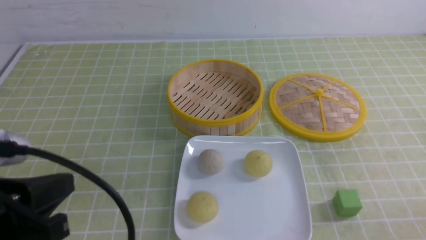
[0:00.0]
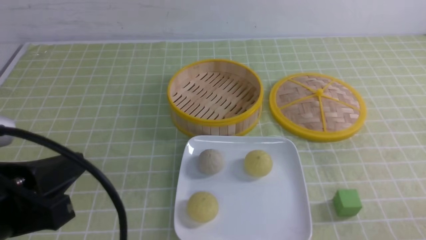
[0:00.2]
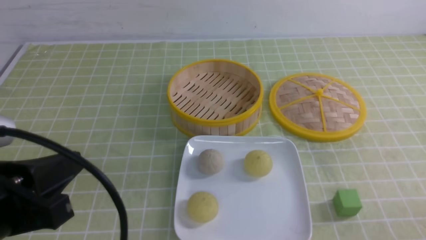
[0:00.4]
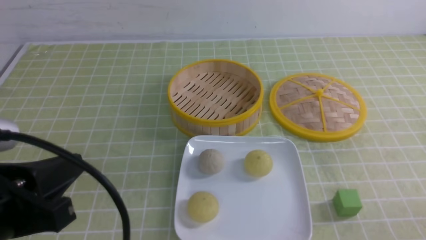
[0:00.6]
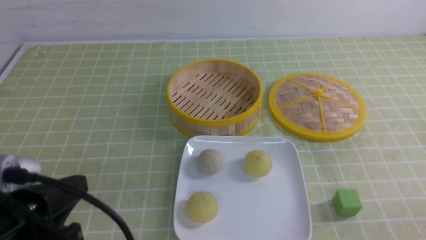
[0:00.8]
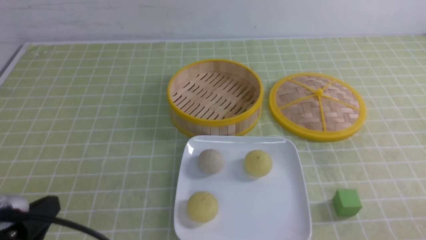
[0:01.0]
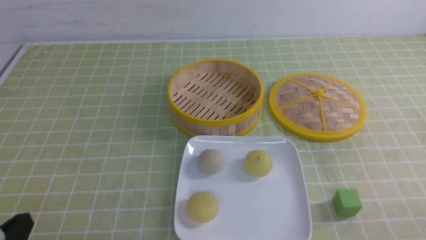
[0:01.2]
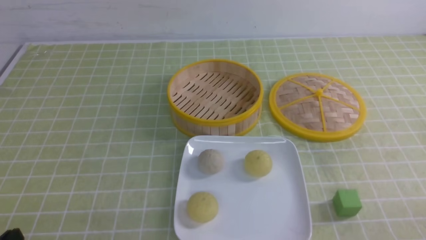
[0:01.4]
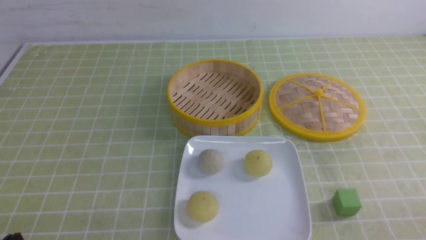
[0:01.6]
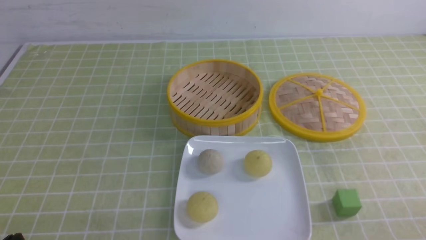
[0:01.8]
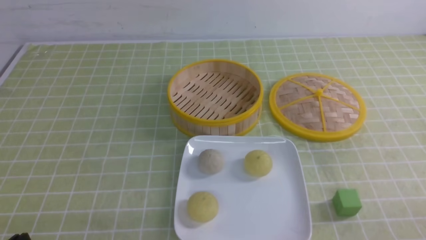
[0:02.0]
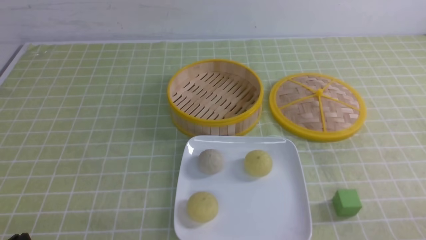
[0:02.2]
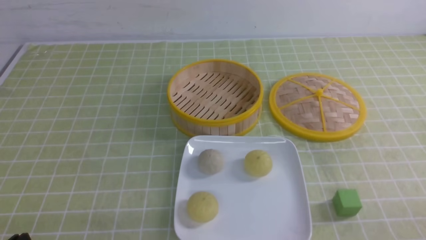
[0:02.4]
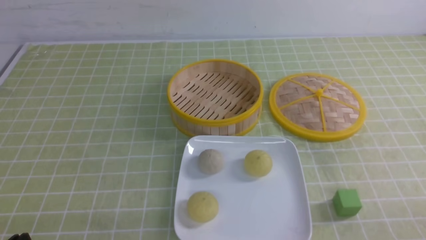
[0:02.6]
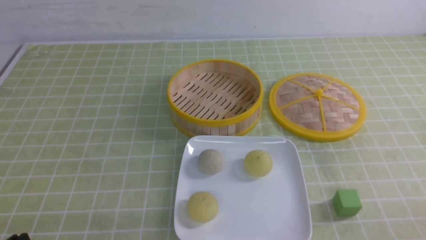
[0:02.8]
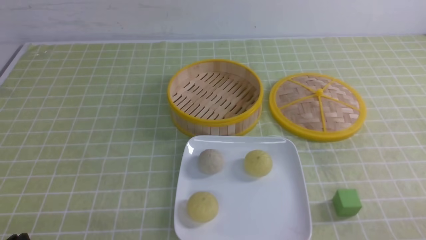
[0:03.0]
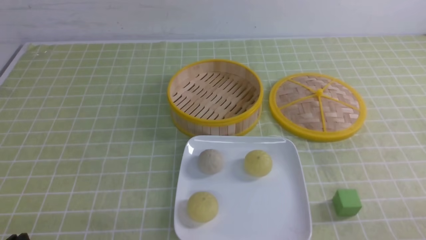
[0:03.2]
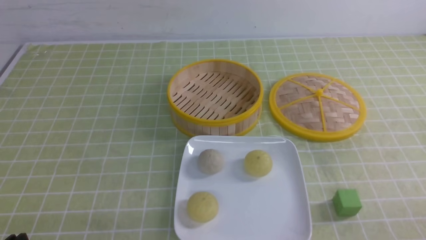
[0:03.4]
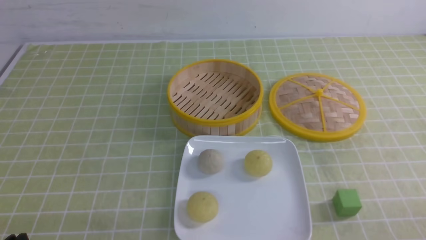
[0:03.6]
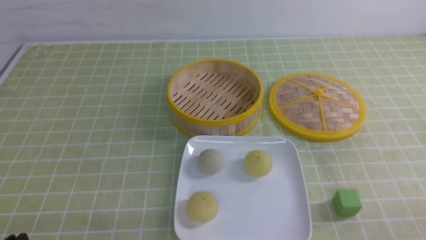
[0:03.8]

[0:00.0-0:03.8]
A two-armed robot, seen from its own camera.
0:00.0 to 0:01.2: The left gripper shifts roughly 10 cm downward.
0:02.6 to 0:03.8: Both grippers stay about where they are.

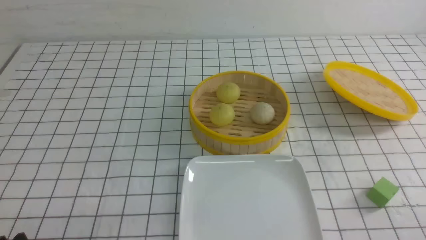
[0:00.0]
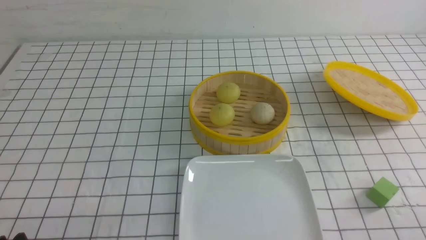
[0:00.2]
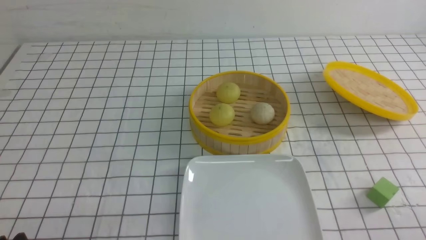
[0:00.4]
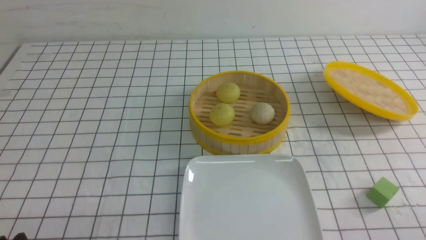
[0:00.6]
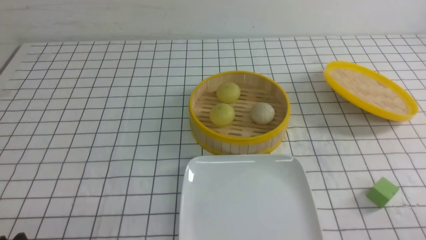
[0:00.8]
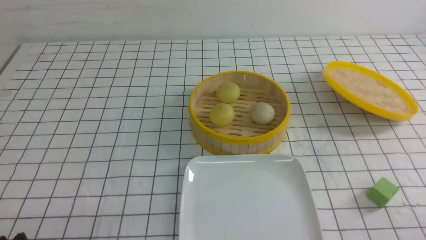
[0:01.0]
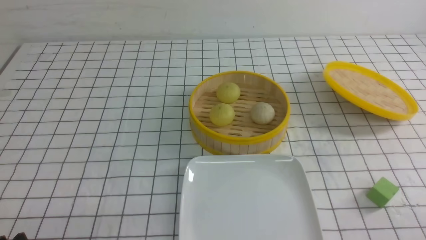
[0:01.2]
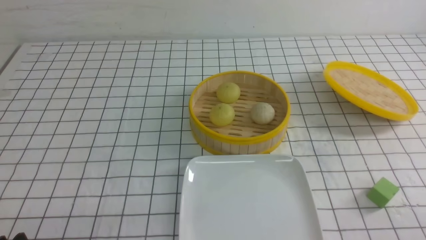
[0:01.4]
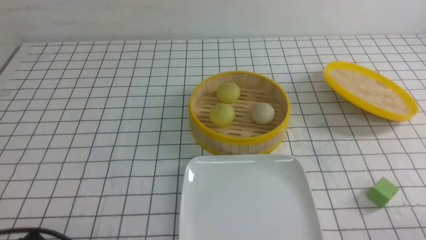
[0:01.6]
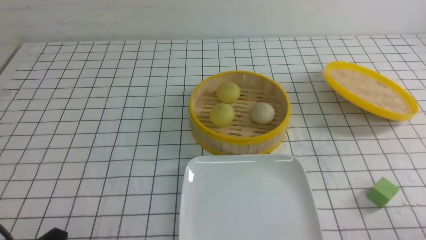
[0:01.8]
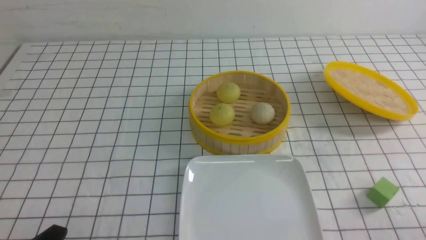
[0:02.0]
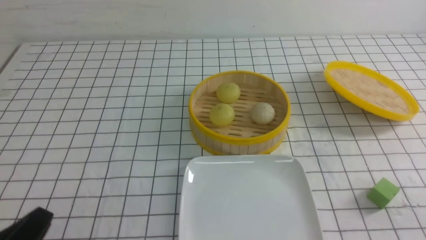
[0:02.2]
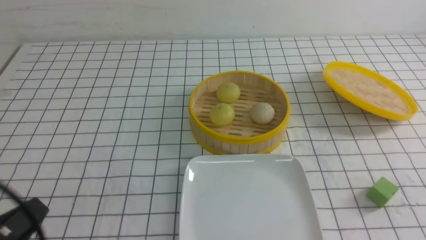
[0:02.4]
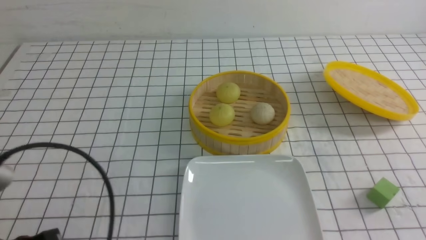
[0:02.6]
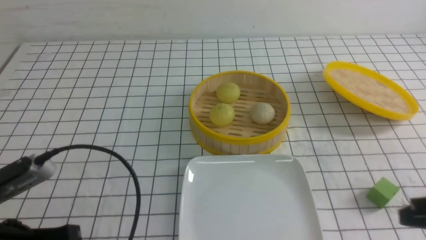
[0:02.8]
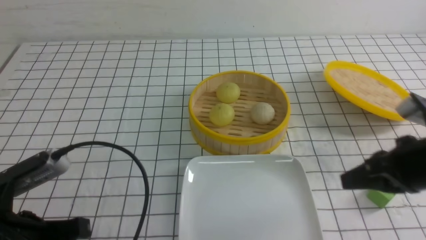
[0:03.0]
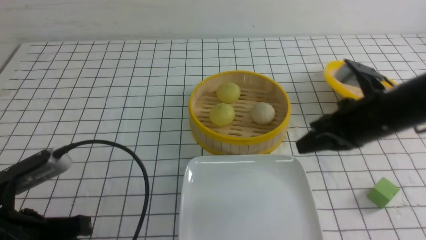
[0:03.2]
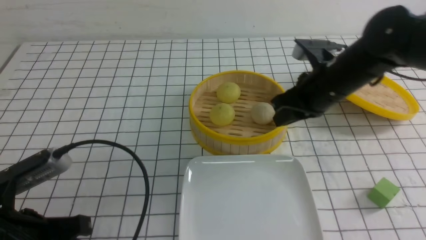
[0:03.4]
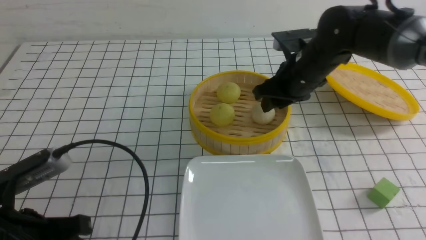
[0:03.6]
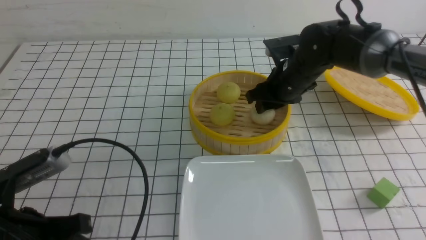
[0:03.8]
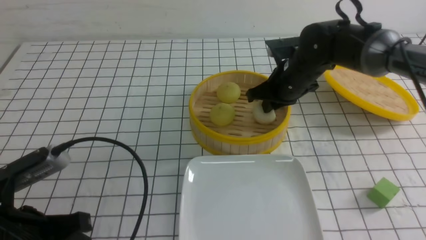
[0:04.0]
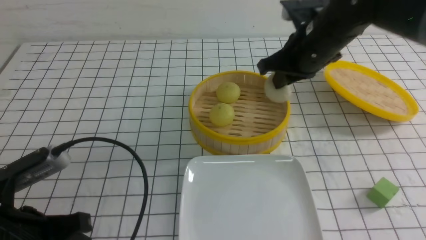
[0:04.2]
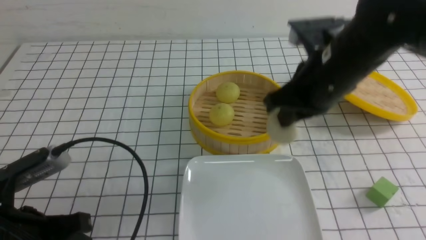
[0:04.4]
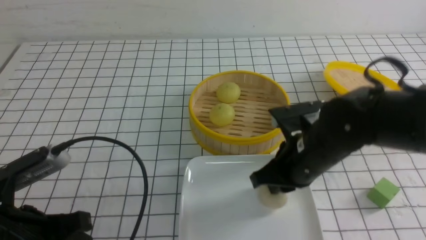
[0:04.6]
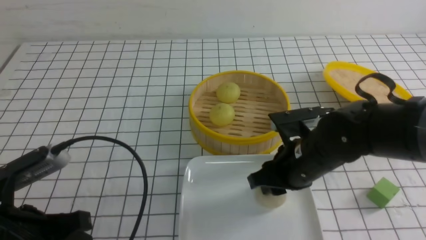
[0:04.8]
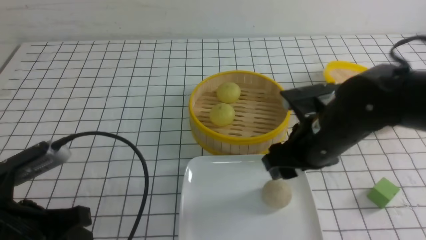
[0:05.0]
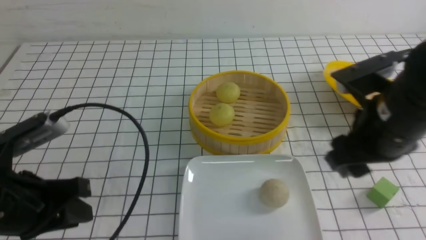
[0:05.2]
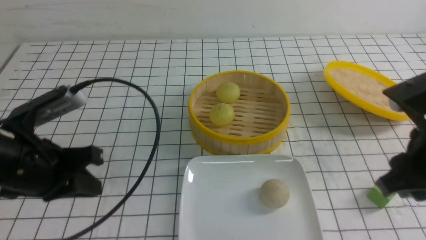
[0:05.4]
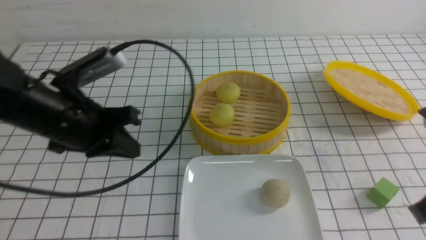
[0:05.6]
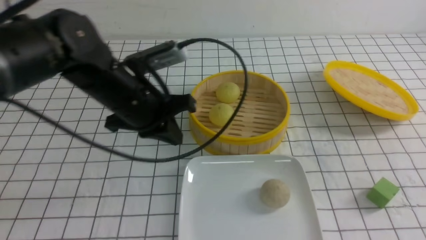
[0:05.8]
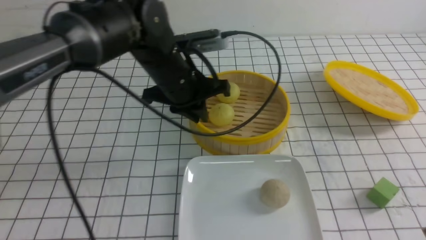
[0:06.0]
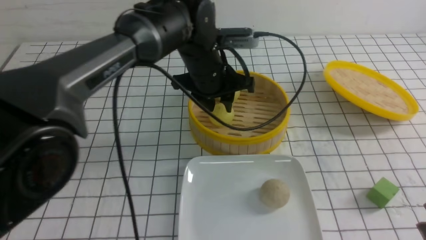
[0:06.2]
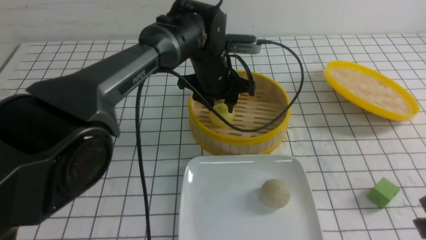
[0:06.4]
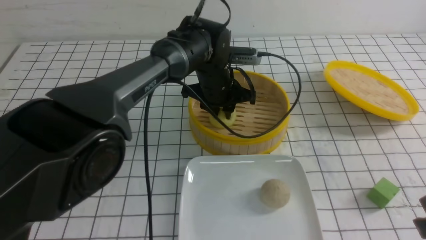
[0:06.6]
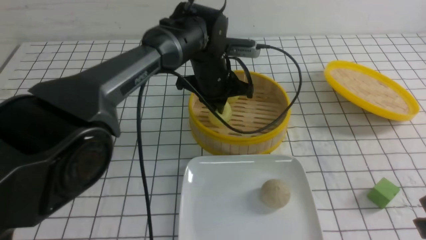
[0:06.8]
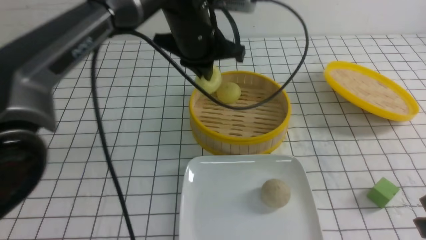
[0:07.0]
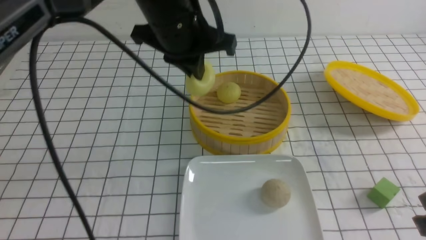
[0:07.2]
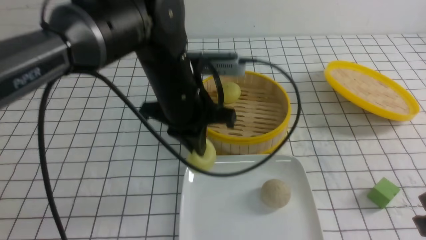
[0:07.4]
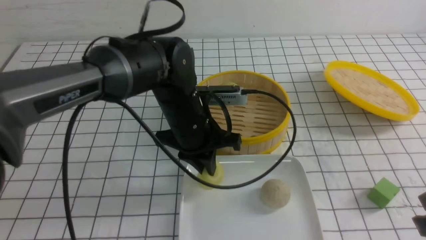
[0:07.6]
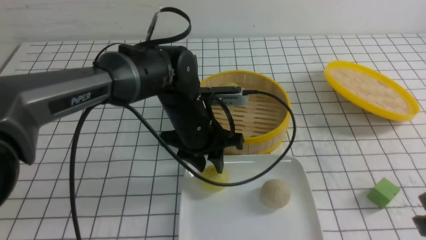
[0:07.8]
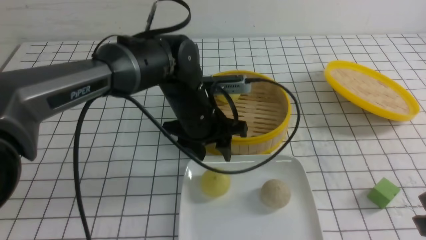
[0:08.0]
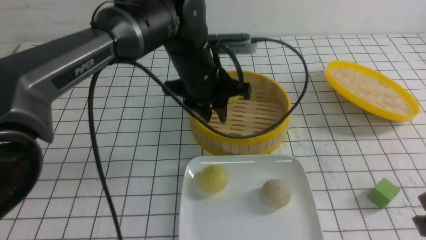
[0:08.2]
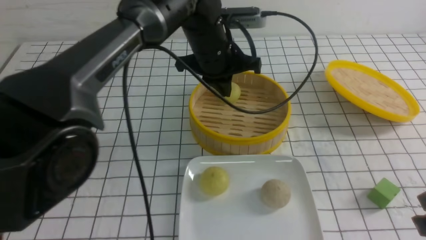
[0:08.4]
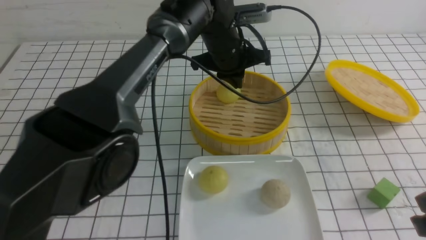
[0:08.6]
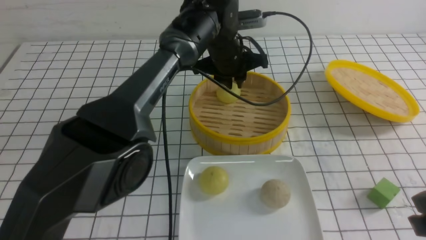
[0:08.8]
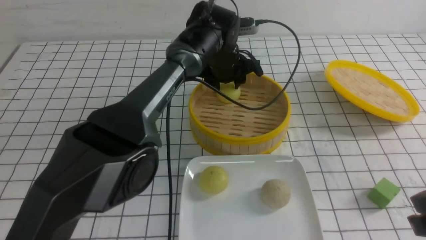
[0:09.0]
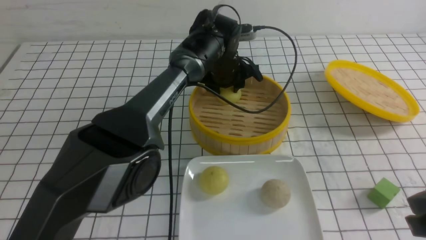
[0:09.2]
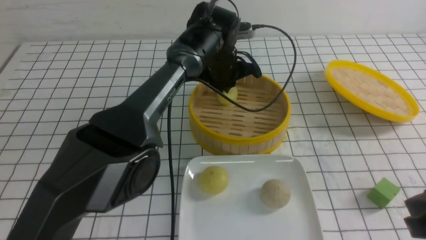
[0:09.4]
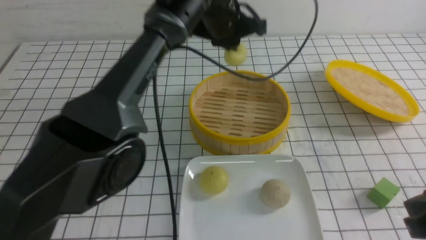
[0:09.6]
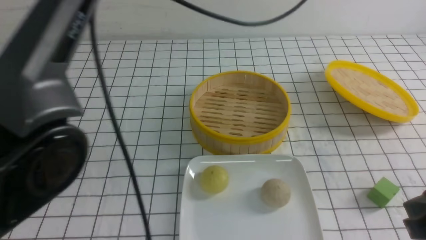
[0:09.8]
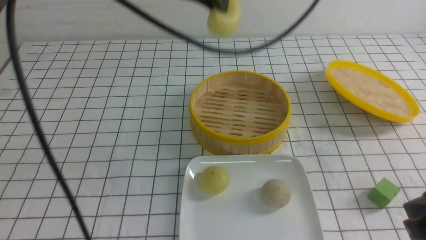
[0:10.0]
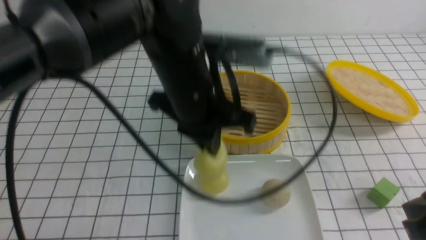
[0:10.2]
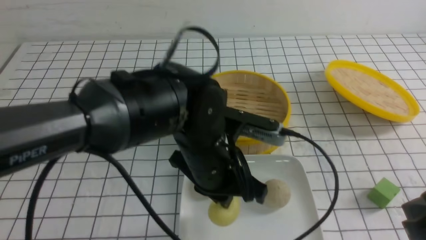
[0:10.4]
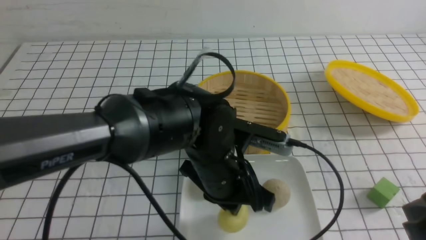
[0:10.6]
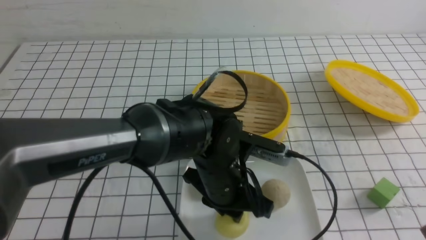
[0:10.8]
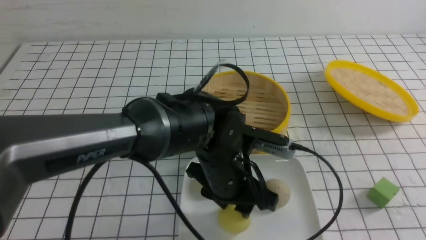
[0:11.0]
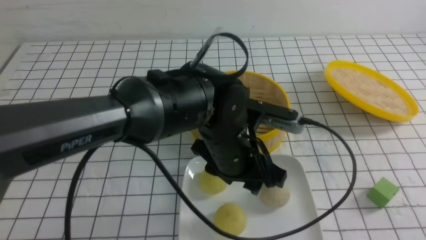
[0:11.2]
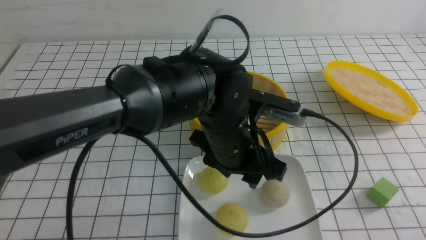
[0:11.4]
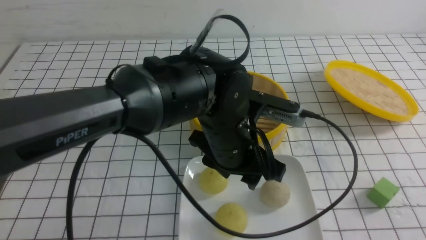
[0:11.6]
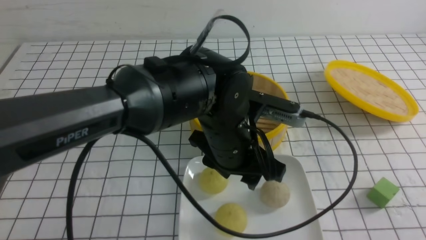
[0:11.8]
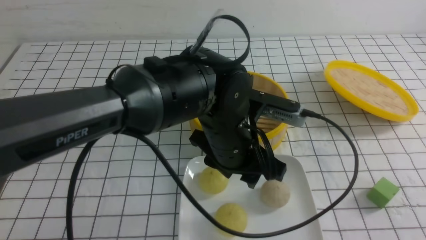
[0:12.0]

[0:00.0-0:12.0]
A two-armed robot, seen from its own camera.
Step, 0:00.0 to 0:03.8: use the right arm to grab the steamed stuffed bun that is closest to it.
Step, 0:04.0 to 0:04.6: use the right arm to put the steamed stuffed bun into the plate.
Step, 0:04.8 to 0:06.6: use the left arm to grab the steamed stuffed bun that is closest to it.
Step, 0:06.8 to 0:07.6: use the left arm to put the steamed stuffed bun into the plate.
Step, 0:07.8 to 0:09.2: use the left arm to grab the steamed stuffed bun that is closest to it.
Step, 0:09.4 to 0:10.8: use the left arm to put the steamed stuffed bun into the plate.
0:01.6 to 0:03.0: The right gripper goes some 20 cm forward and upward, and closes. The left gripper heads forward and upward, covering some 10 cm, and closes.
0:03.0 to 0:04.4: The right gripper heads to the left and forward, covering approximately 15 cm, and opens, then closes again. The left gripper opens its fingers.
0:04.4 to 0:06.0: The left gripper heads forward and to the right, covering roughly 30 cm, and closes, then opens again. Meanwhile the right gripper heads backward and to the right, covering roughly 25 cm, and opens, then closes again.
0:06.0 to 0:07.6: The left gripper swings up and down, some 10 cm each way, with 2 reversals, and closes and opens again.
0:07.6 to 0:09.0: The left gripper is displaced forward and to the right by some 15 cm, and opens up.
0:09.0 to 0:10.4: The left gripper goes approximately 25 cm backward, and closes.
0:10.4 to 0:12.0: The left gripper opens up. Meanwhile the right gripper moves backward, about 10 cm.
